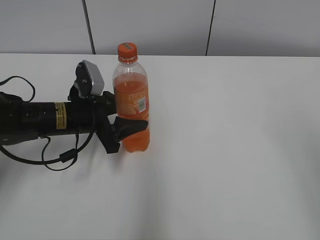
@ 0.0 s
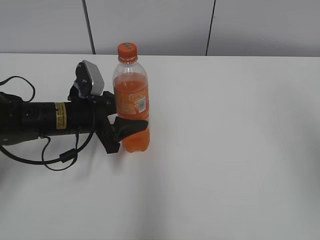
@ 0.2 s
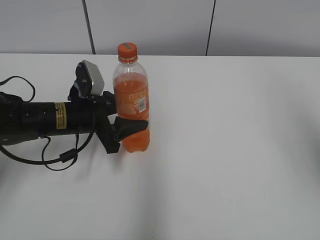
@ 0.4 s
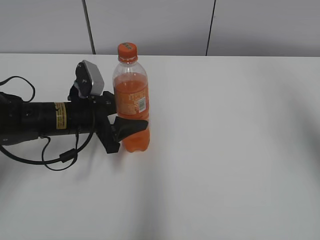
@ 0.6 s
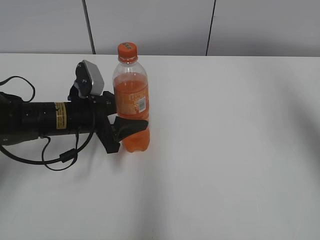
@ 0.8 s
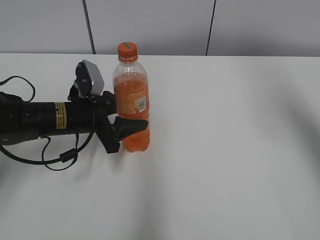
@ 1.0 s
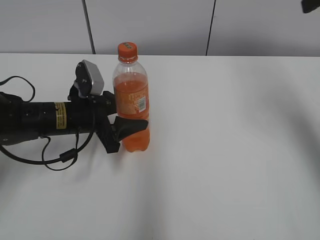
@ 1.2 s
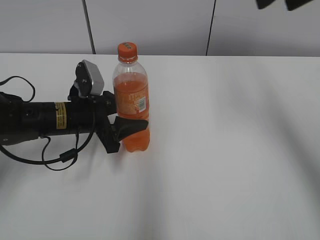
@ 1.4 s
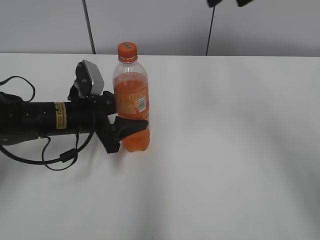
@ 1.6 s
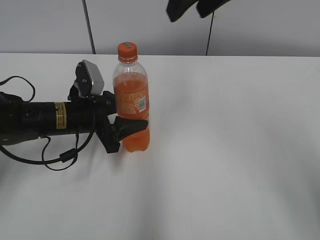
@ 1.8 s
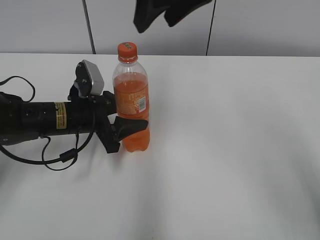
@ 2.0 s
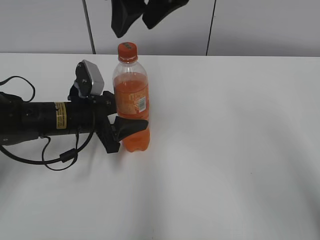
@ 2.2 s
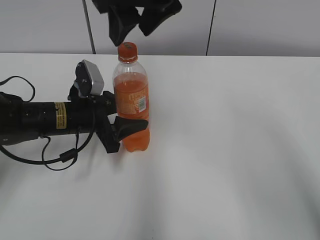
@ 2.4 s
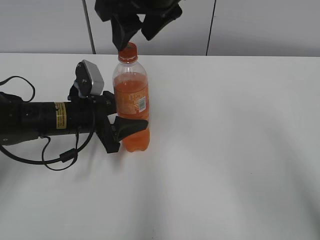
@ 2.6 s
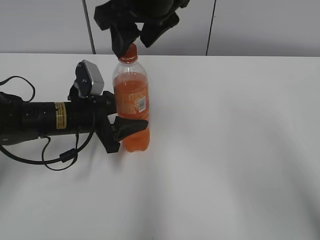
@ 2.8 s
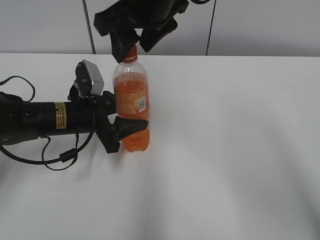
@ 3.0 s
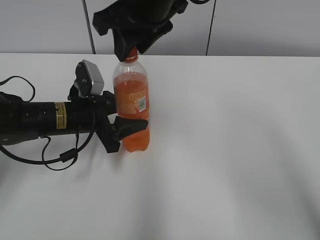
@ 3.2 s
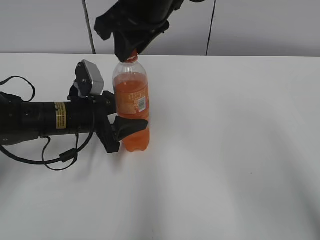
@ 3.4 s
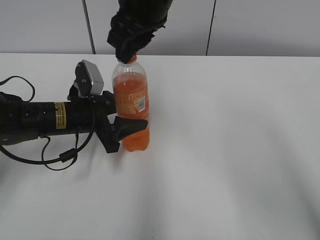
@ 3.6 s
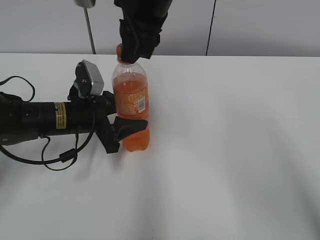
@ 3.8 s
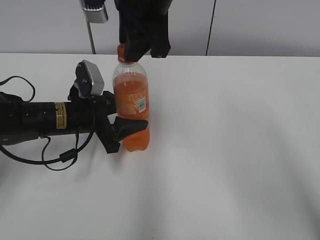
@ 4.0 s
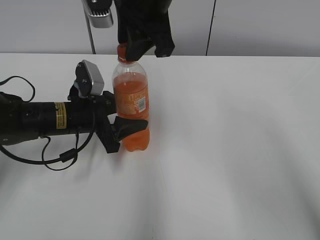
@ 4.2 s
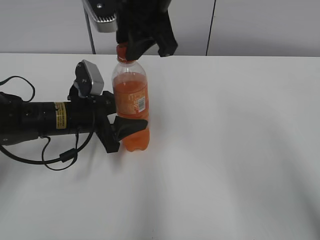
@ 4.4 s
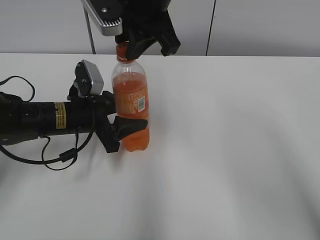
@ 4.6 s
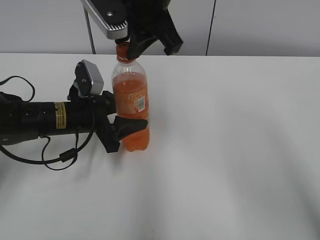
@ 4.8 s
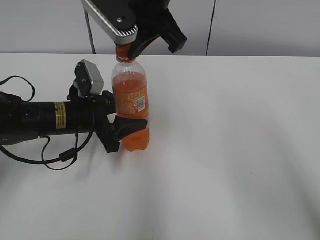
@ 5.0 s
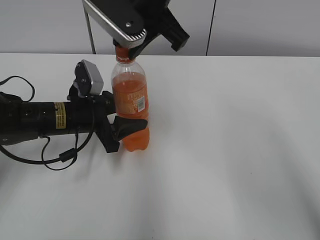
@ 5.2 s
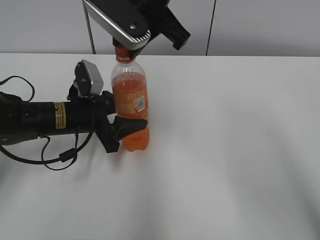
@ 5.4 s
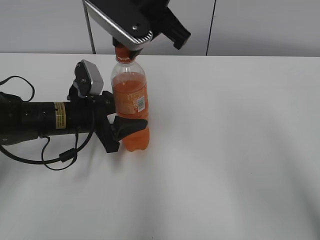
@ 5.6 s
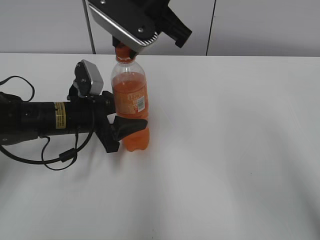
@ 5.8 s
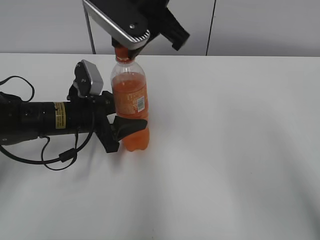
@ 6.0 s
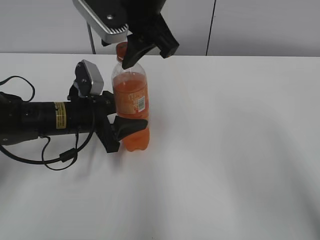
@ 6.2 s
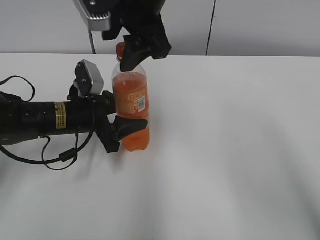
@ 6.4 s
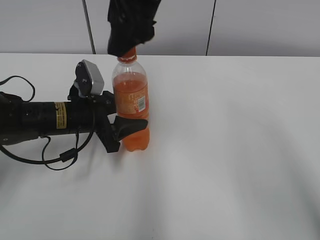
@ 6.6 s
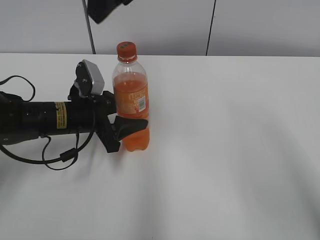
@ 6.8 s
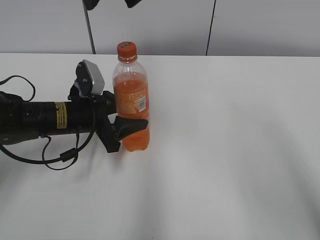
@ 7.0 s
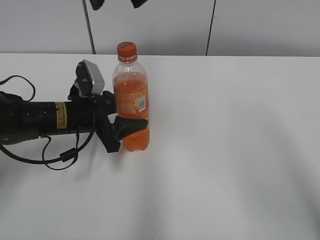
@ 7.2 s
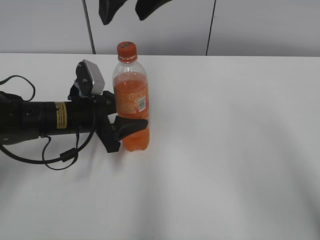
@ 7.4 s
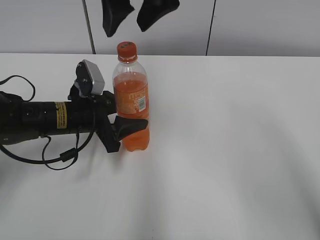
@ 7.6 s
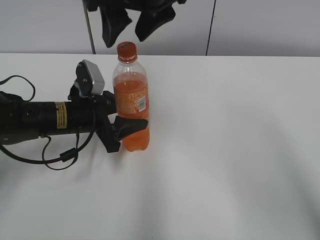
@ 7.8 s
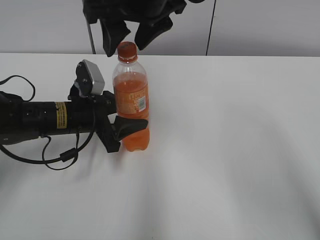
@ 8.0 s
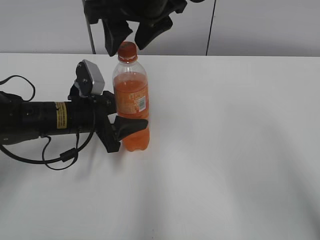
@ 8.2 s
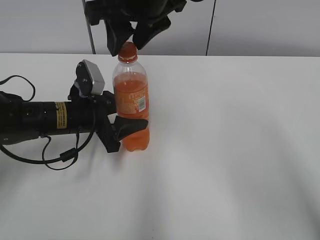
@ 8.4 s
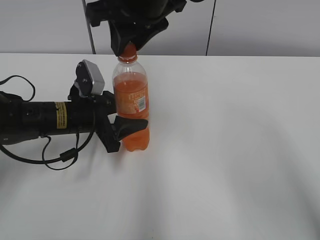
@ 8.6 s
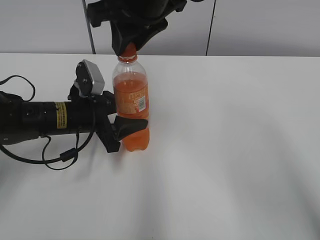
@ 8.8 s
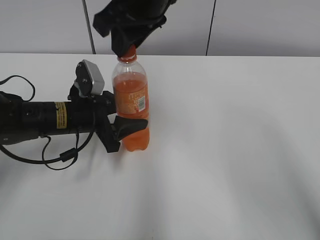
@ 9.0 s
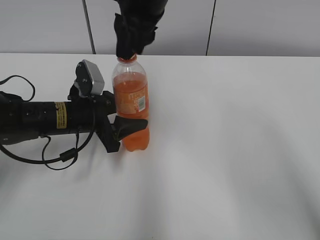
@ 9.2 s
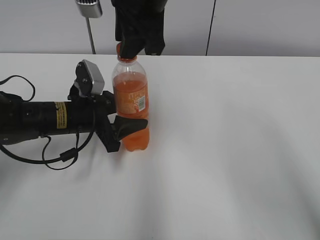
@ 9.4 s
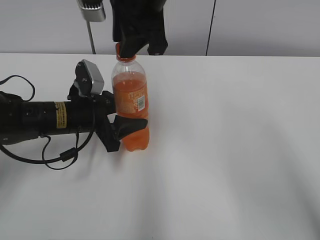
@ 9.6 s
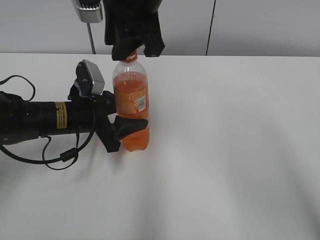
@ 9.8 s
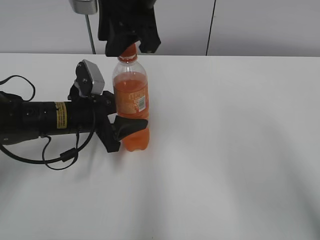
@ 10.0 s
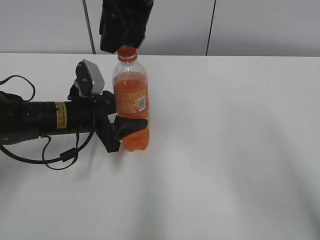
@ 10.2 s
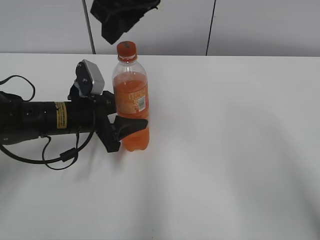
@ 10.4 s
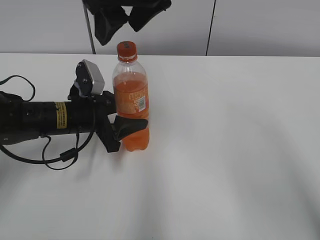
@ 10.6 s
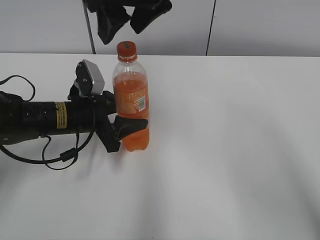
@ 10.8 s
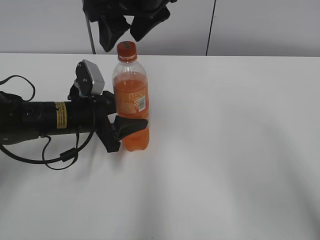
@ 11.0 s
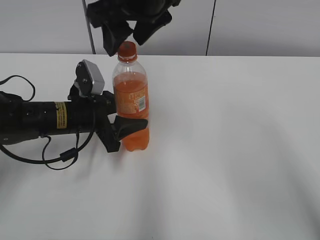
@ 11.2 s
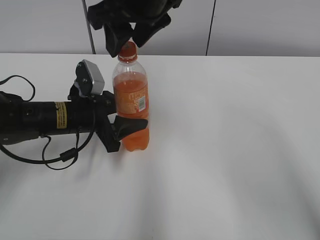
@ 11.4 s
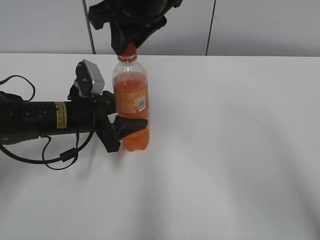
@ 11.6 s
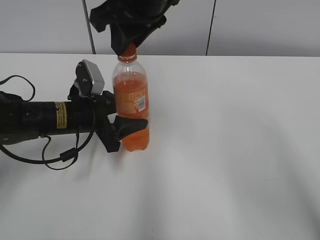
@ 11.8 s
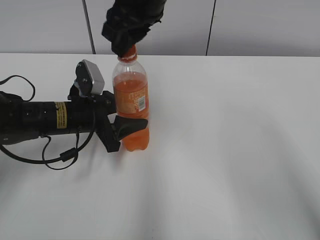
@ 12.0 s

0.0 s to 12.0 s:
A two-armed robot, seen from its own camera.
1.6 to 3.0 s: The right gripper is displaced to the left and downward by approximately 15 cm.
3.0 to 4.4 s: The right gripper closes its fingers.
6.0 to 7.6 s: The right gripper opens up.
7.6 to 9.0 s: The right gripper closes up.
10.4 to 12.0 s: The right gripper opens, then closes once more.

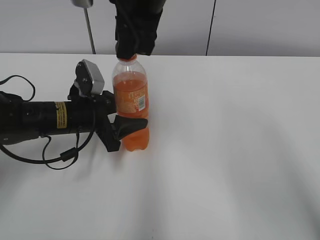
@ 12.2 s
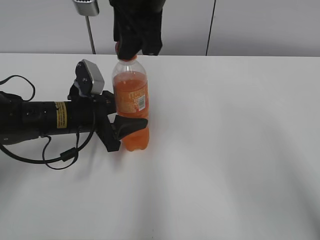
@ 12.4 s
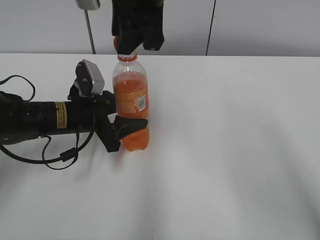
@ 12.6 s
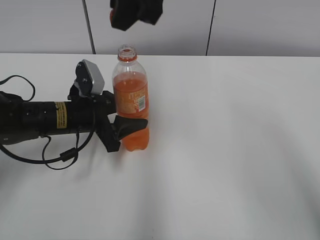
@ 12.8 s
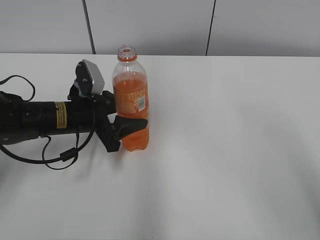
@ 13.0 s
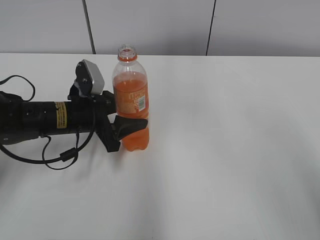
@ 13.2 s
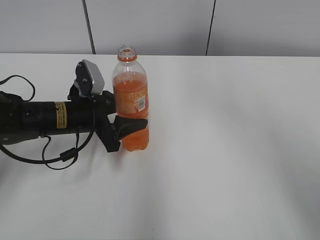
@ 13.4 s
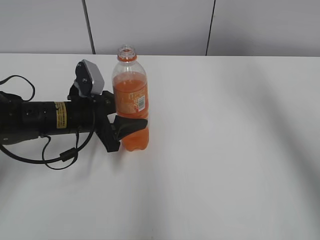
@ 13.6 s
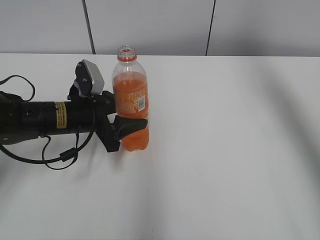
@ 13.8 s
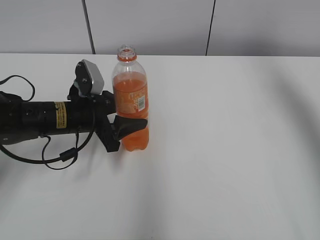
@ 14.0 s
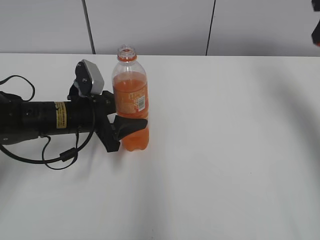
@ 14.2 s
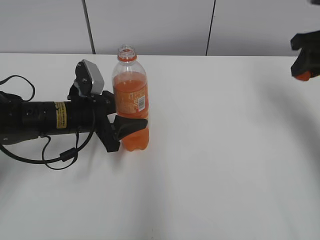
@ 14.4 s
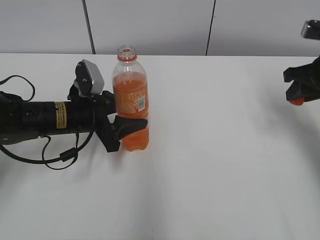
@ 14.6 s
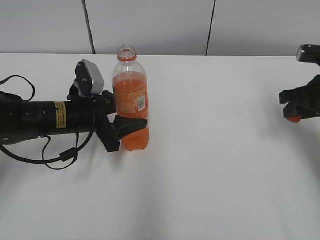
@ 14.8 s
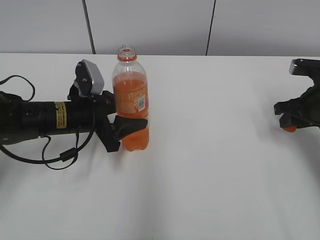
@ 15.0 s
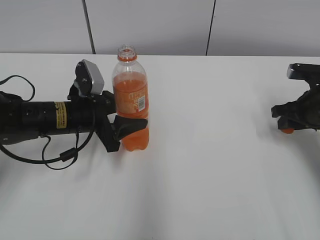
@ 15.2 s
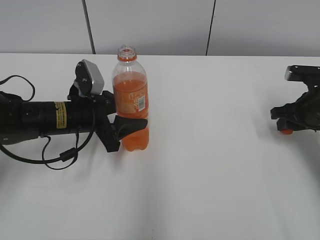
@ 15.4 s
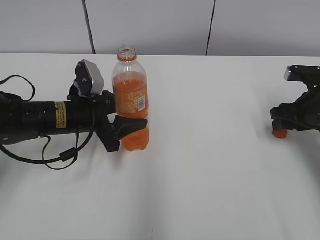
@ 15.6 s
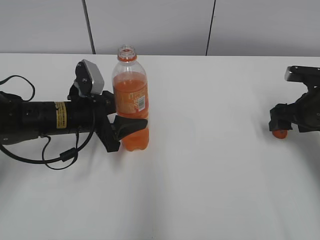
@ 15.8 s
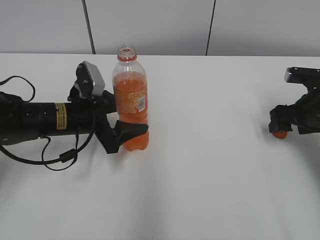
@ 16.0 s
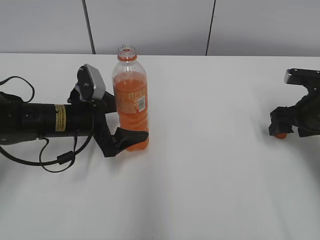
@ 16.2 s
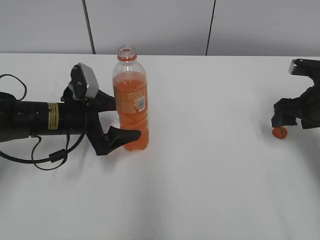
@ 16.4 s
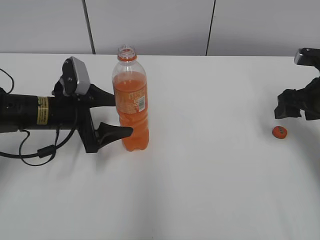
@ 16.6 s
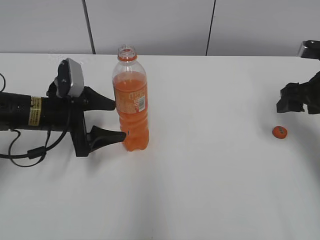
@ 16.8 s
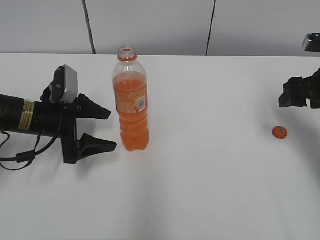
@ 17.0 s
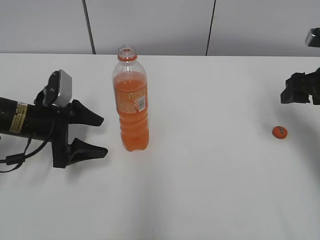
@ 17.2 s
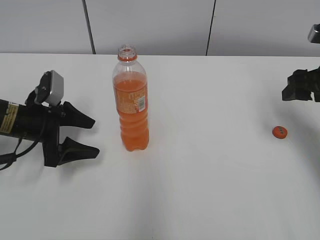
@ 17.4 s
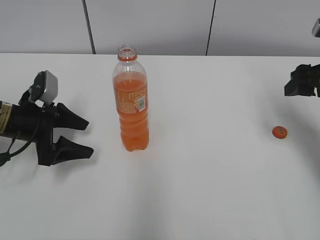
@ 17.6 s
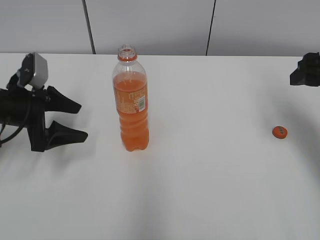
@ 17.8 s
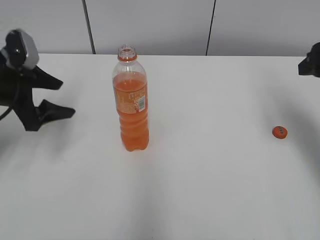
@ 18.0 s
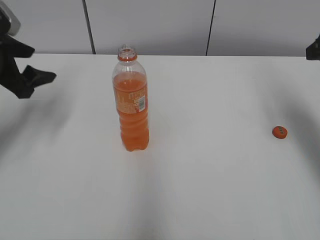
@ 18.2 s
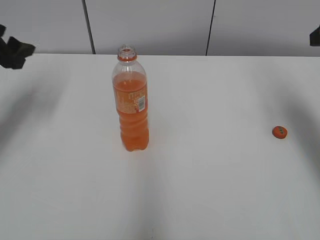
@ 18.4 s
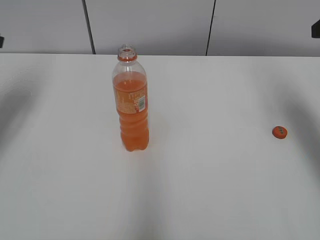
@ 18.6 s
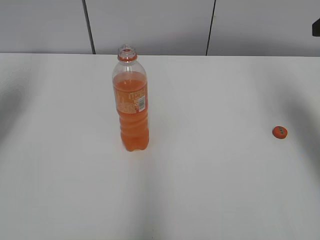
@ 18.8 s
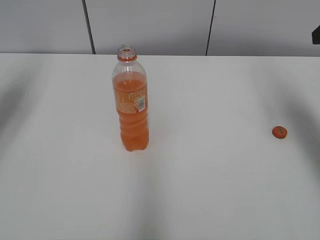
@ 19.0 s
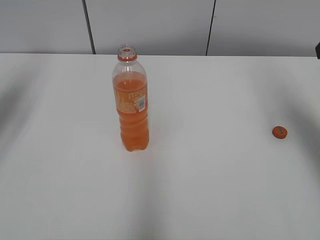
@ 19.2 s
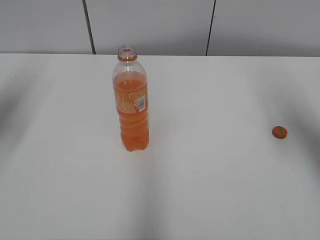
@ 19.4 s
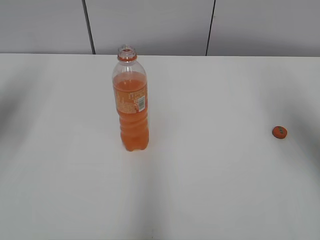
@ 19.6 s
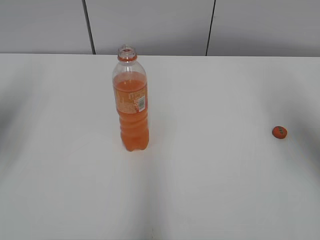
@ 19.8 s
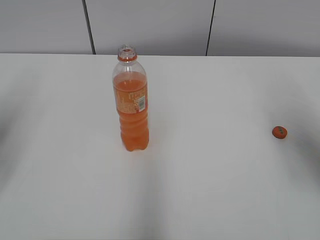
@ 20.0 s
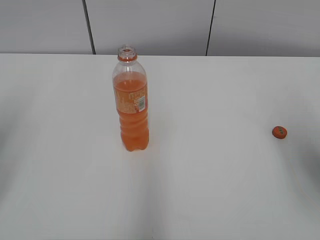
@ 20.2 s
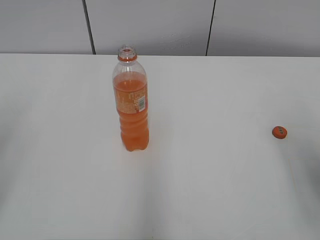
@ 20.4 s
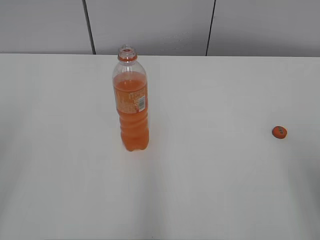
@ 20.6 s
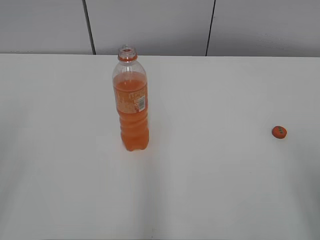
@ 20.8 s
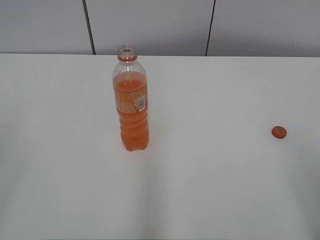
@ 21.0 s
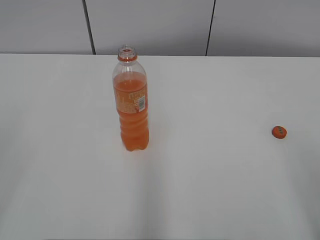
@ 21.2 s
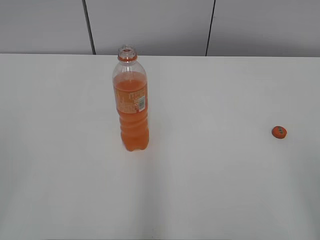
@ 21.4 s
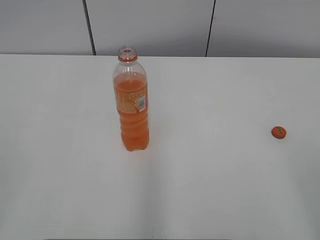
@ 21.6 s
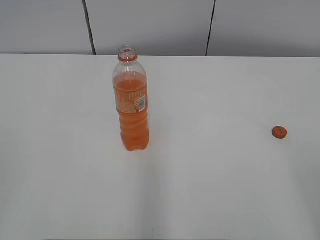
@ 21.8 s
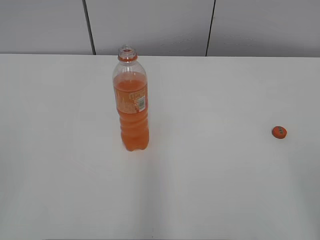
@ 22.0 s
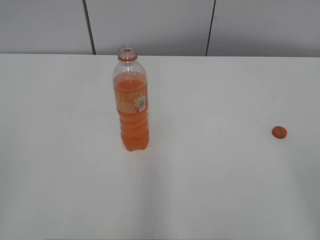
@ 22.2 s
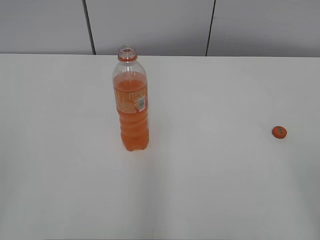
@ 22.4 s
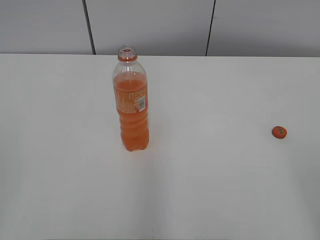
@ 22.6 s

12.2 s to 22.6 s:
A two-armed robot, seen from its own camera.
Step, 12.6 to 15.6 s: Place the bottle cap on the table with the right gripper.
Step, 15.8 to 16.2 s: Place the bottle on the table with the left gripper.
12.2 to 13.6 s: The right gripper goes some 25 cm to the right and upward.
13.6 to 15.2 s: The right gripper heads downward, covering roughly 35 cm.
15.2 to 16.6 s: The left gripper opens up; the right gripper opens up.
16.6 to 18.2 s: The left gripper is displaced to the left and upward by approximately 15 cm. The right gripper is displaced upward by roughly 10 cm.
18.2 to 19.6 s: The left gripper goes about 10 cm upward and to the left.
19.6 to 21.2 s: The two grippers go roughly 25 cm backward.
